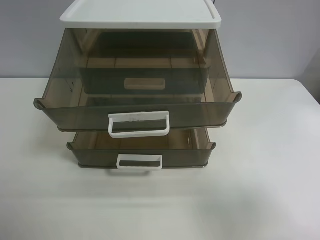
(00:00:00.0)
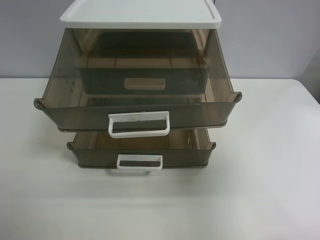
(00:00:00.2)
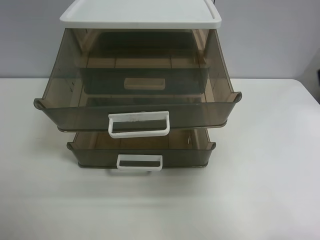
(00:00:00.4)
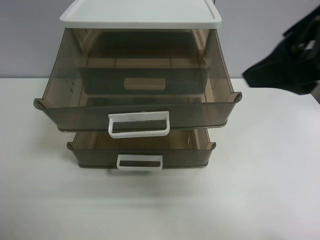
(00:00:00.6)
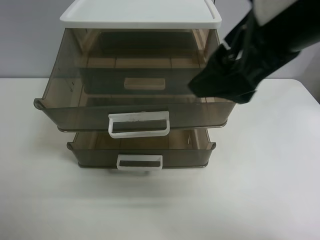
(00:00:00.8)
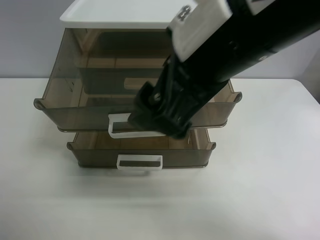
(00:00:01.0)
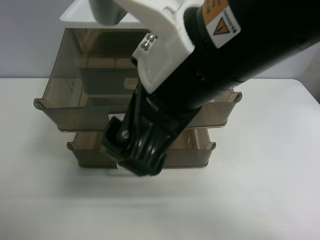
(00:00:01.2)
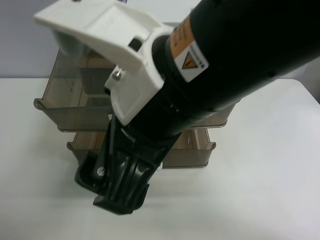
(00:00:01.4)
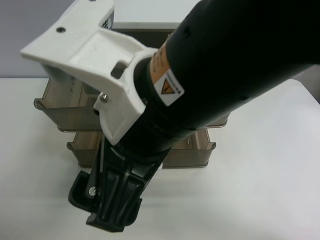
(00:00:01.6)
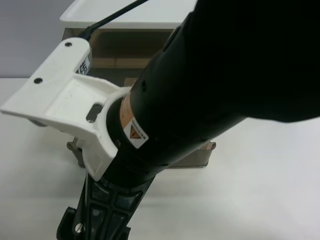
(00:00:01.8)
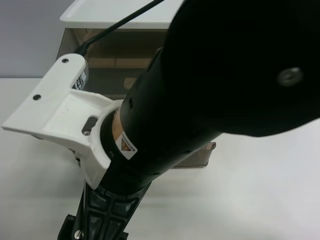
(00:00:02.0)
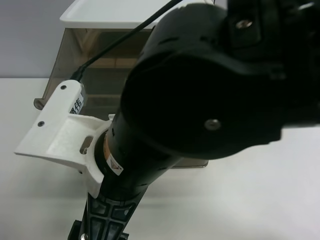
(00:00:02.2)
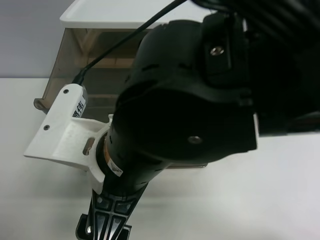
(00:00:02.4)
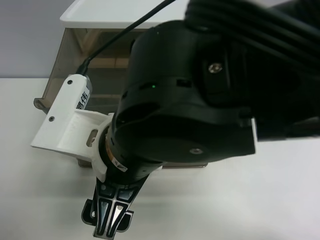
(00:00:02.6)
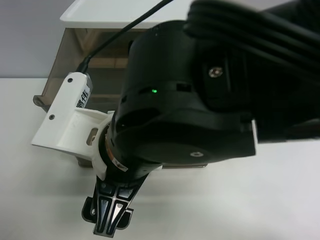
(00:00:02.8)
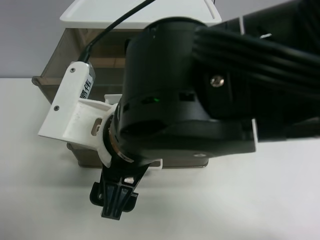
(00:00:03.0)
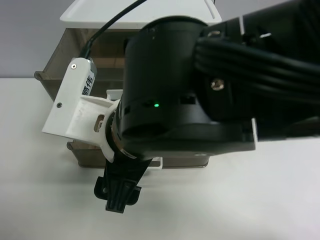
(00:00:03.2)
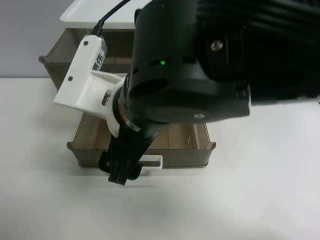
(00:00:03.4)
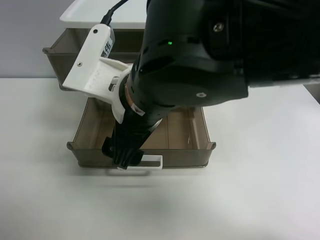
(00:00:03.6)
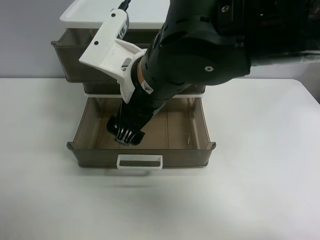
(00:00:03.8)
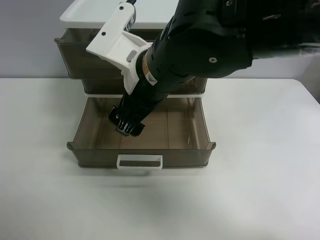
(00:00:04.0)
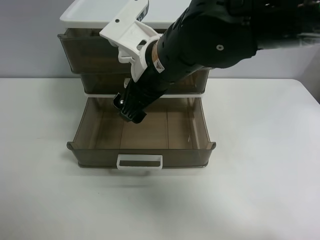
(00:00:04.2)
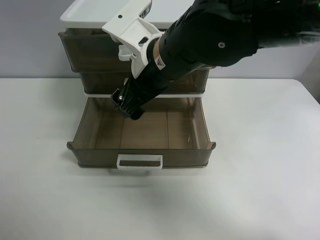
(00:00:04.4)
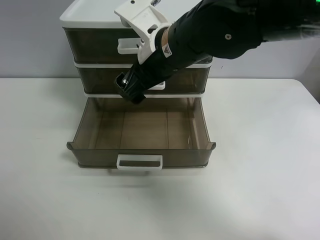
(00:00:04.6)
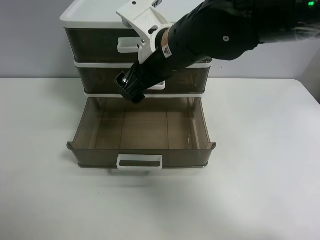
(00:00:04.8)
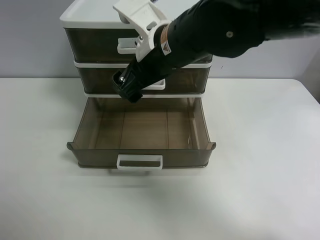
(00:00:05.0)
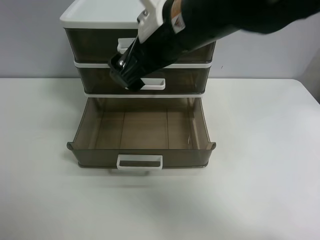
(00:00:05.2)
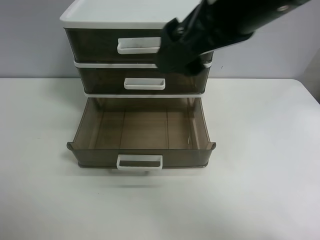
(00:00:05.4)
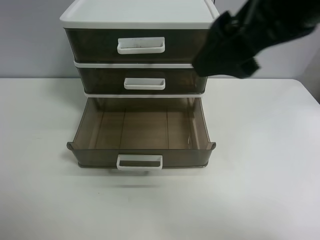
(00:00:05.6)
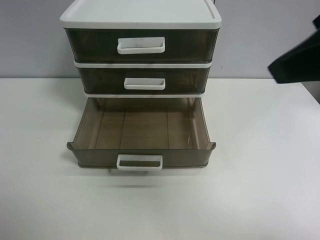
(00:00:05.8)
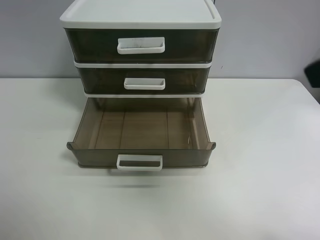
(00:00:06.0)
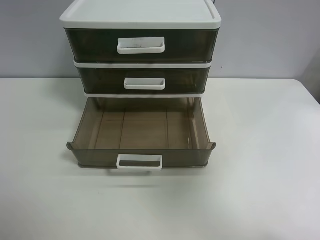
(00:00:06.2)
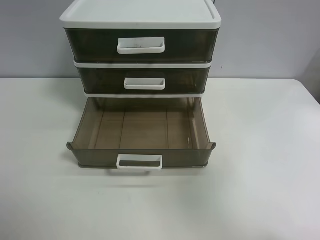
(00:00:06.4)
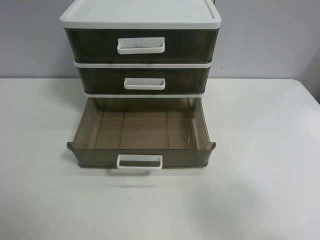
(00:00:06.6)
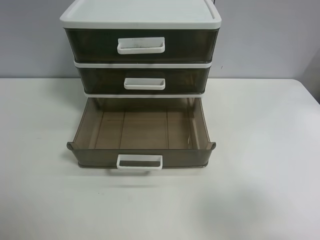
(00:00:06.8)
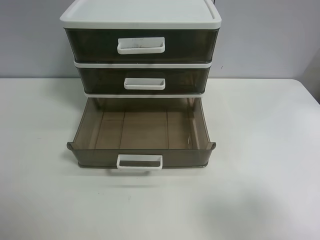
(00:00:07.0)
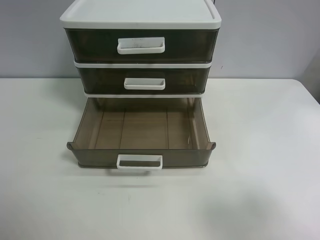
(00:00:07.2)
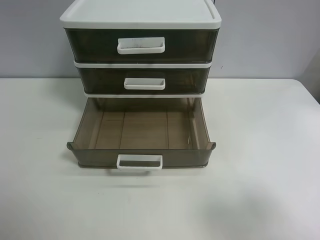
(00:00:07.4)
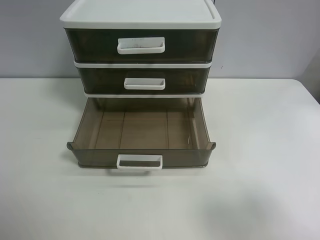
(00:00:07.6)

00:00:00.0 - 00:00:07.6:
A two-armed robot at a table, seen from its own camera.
Task of the whole recording: close the top drawer.
Step, 00:00:00.0 - 00:00:02.8: Use the right gripper to touch the topmost layer of the storage cabinet.
Step, 00:00:03.0 - 00:00:05.0: Push the top drawer closed.
00:00:00.0 - 00:00:01.6: The right gripper travels to the left by roughly 30 cm.
00:00:01.6 - 00:00:03.0: The right gripper heads downward, covering approximately 5 cm.
00:00:03.0 - 00:00:04.6: The right gripper shifts approximately 15 cm forward.
00:00:04.6 - 00:00:06.0: The right gripper shifts approximately 30 cm to the right, backward and upward.
00:00:06.0 - 00:00:07.6: The right gripper moves downward, backward and to the right, roughly 15 cm.

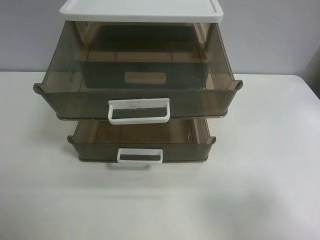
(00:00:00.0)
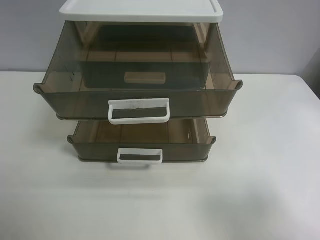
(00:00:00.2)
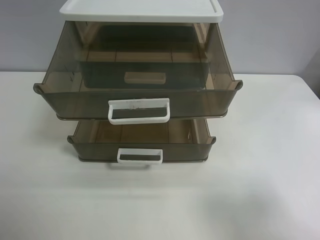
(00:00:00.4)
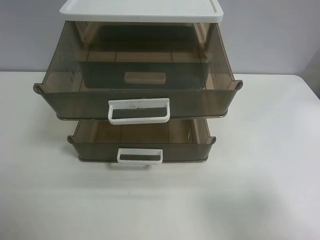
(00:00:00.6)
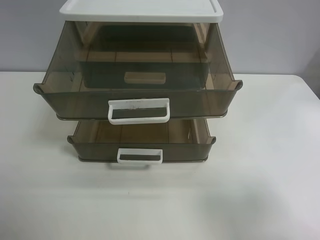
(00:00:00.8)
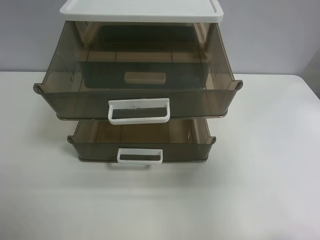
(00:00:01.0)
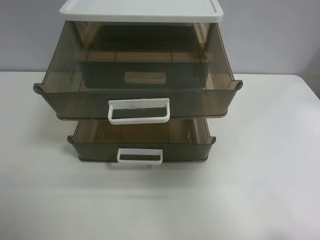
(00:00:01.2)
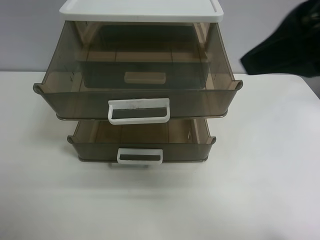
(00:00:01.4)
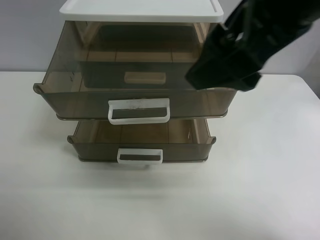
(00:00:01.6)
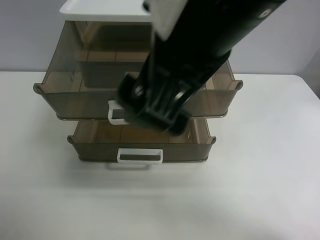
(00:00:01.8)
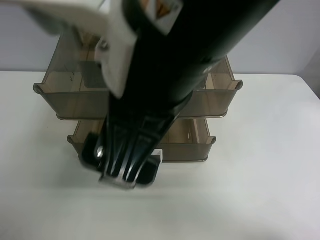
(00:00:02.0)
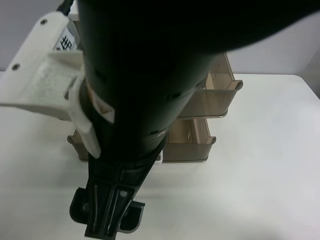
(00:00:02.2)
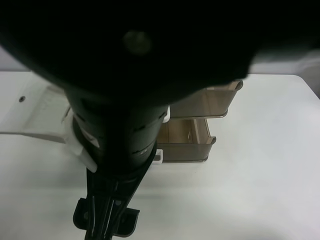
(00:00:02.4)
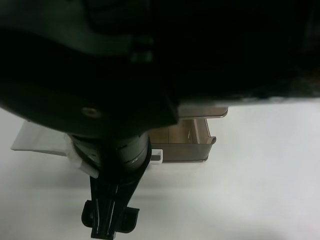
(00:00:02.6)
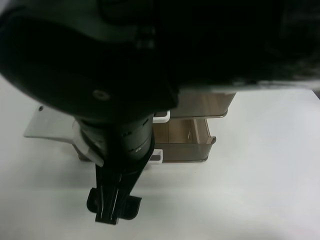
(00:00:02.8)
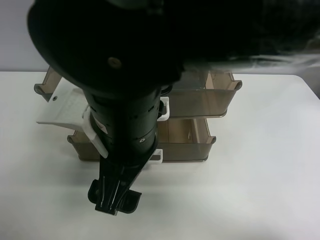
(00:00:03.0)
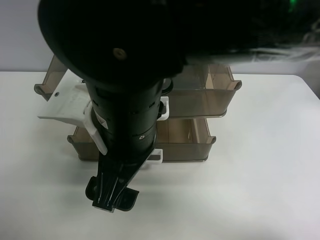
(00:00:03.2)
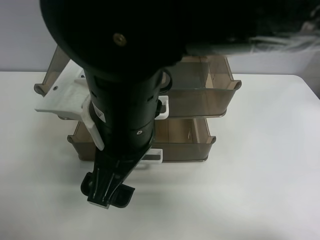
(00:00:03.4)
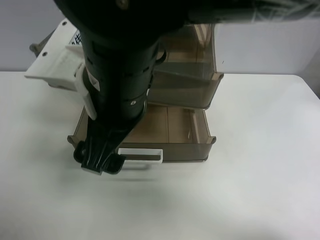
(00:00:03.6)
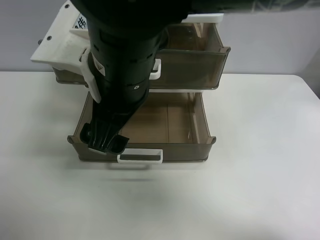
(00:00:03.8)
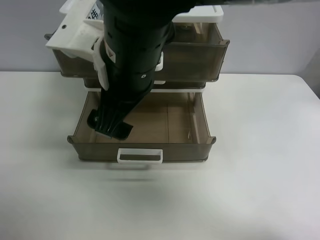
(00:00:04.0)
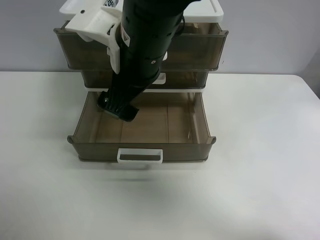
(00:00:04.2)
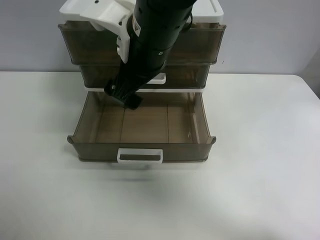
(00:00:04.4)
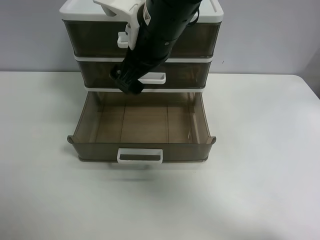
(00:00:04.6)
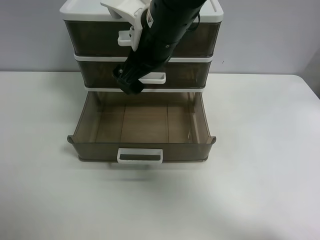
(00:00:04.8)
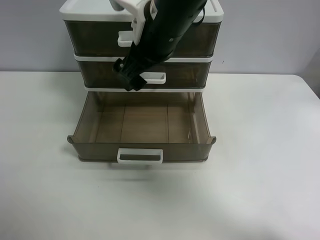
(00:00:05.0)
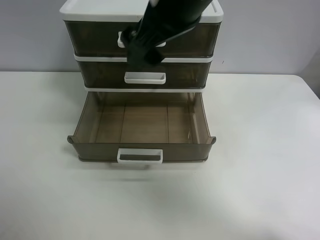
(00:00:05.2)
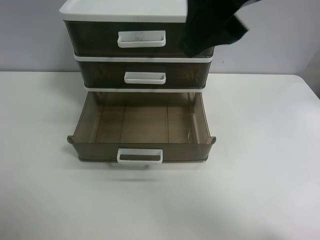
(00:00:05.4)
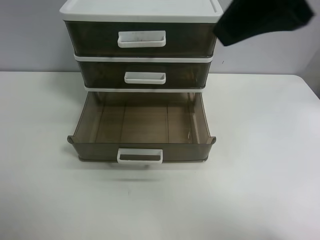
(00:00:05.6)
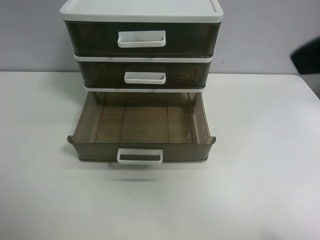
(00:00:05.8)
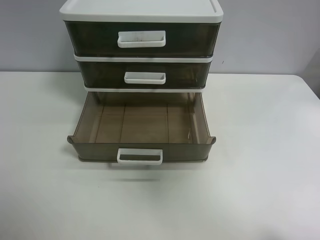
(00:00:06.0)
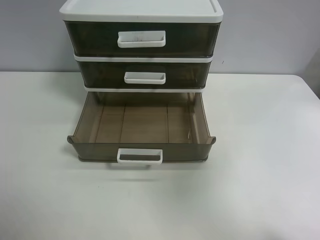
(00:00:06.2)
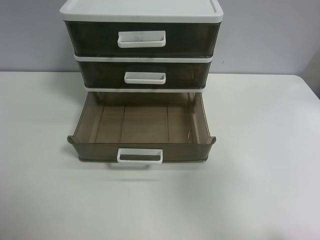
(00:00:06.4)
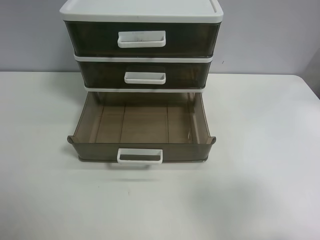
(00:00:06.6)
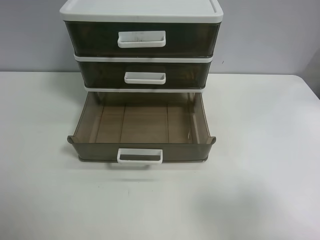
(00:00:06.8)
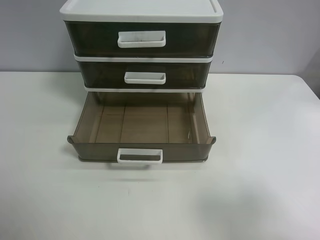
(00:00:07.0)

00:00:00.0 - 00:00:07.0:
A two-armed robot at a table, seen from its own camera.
Task of the whole recording: close the top drawer.
Step, 00:00:00.0 - 00:00:03.4: Use the right gripper to touch the topmost layer of the storage cabinet.
Step, 00:00:03.6 - 00:00:05.0: Push the top drawer closed.
00:00:00.0 - 00:00:01.4: The right gripper travels forward, to the left and upward by roughly 25 cm.
00:00:01.4 - 00:00:02.8: The right gripper heads to the left and downward, covering roughly 25 cm.
00:00:02.8 - 00:00:04.2: The right gripper goes some 10 cm forward.
00:00:04.2 - 00:00:05.6: The right gripper moves to the right, upward and backward, about 25 cm.
00:00:05.6 - 00:00:07.0: The right gripper moves downward, to the right and backward, about 25 cm.
